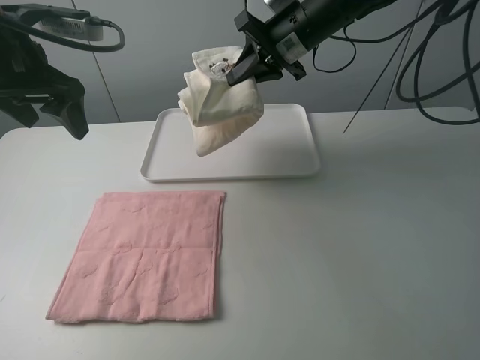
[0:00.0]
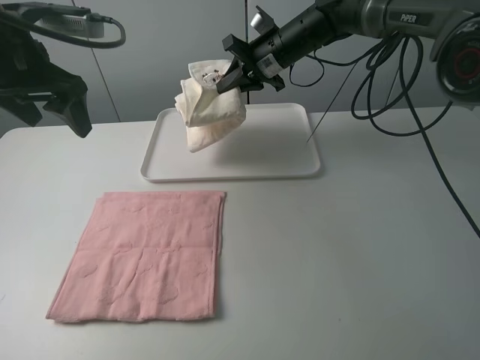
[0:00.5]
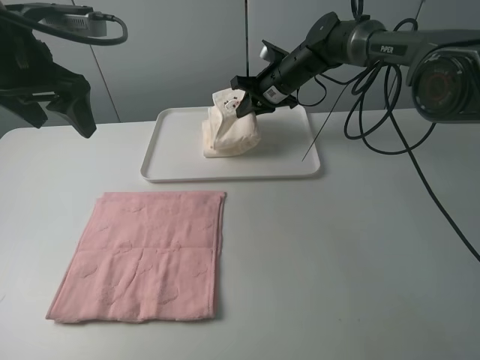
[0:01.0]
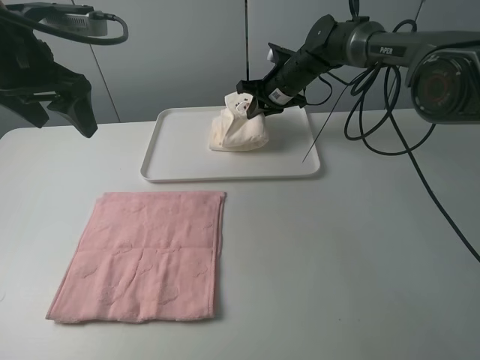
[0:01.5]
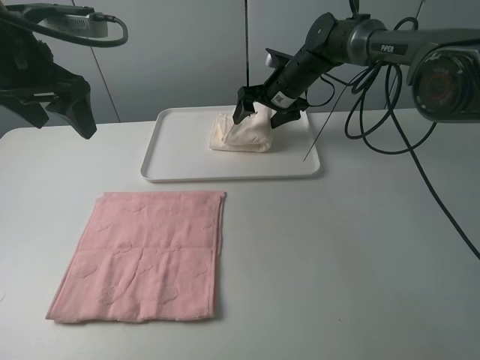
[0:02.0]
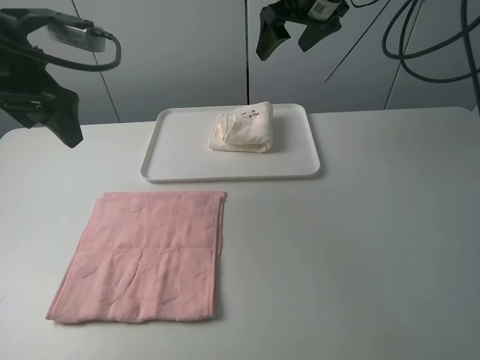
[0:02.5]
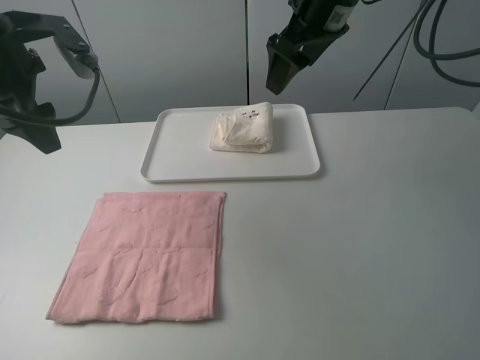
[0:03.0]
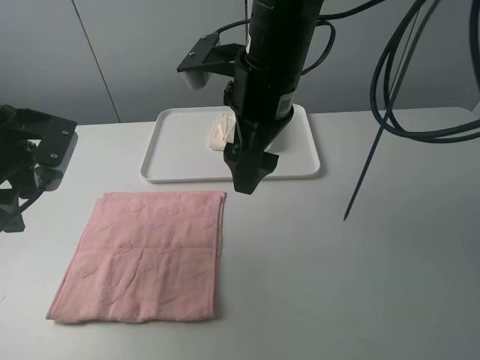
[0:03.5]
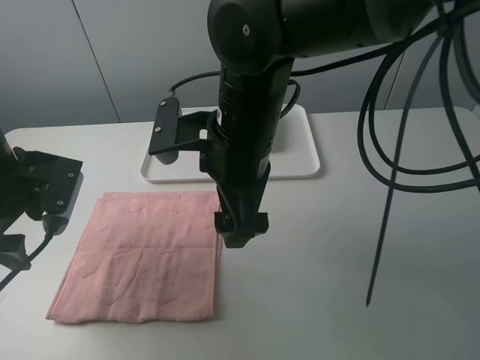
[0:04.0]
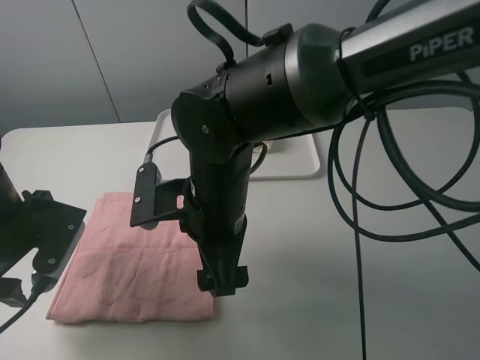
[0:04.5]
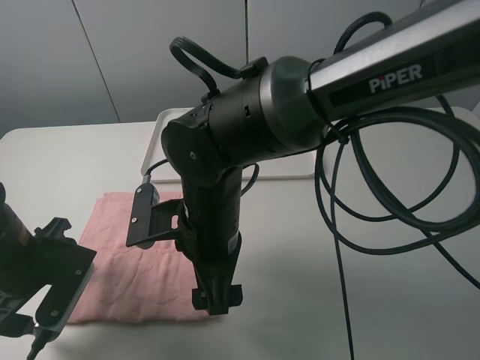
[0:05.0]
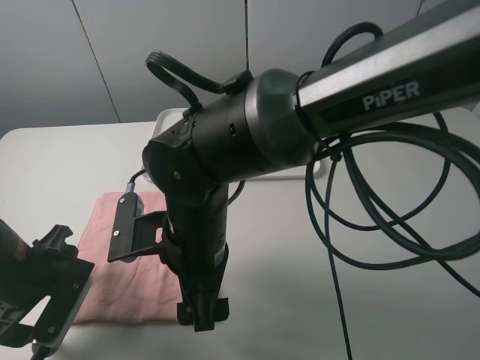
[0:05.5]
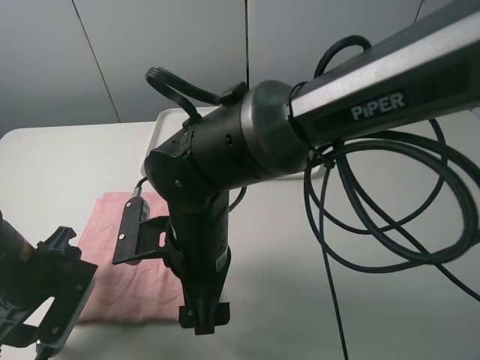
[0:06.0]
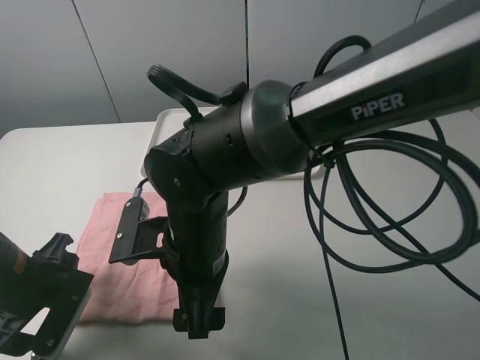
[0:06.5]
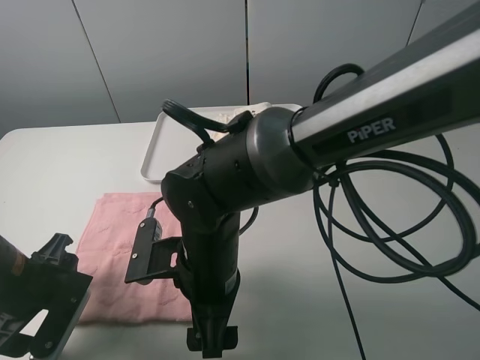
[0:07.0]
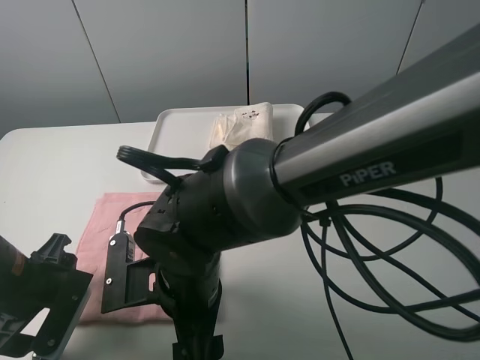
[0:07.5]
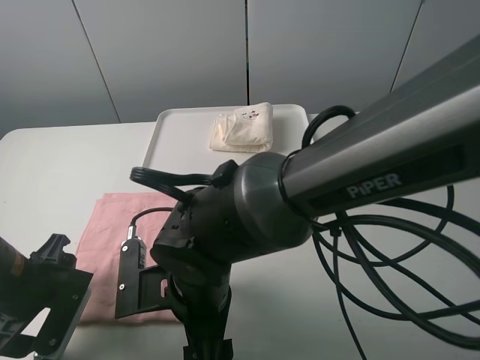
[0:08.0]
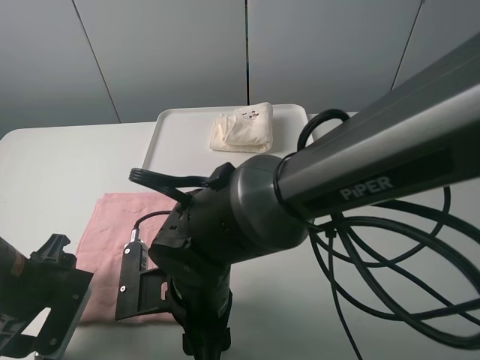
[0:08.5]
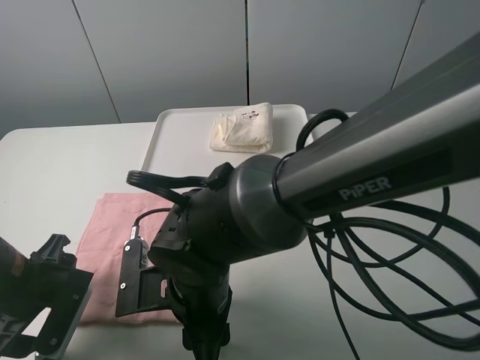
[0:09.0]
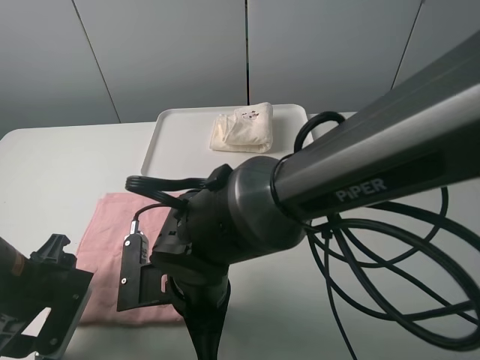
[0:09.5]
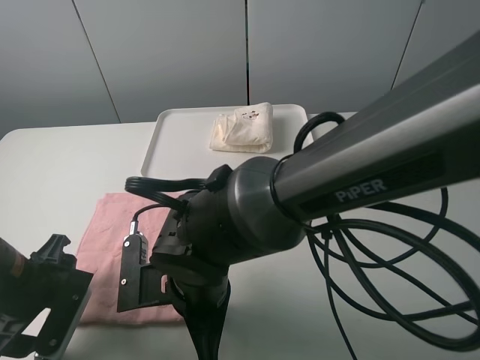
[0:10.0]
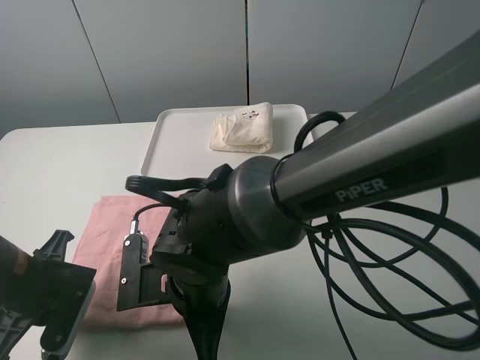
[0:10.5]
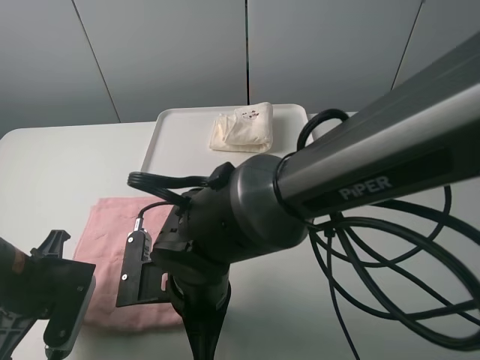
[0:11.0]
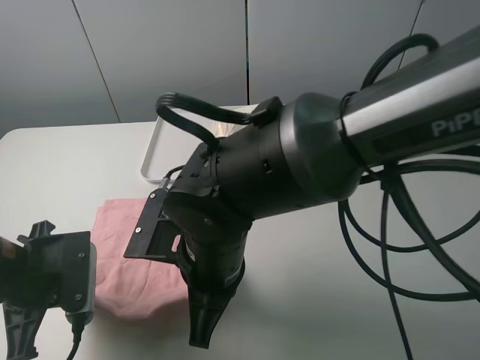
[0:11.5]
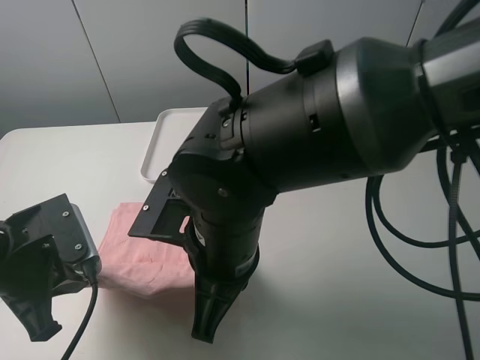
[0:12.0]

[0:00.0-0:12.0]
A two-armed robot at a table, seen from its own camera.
Task of the whole recording: fold one of the towels by two grippers and place it on the tray,then fold another towel by two grippers and place it on the folded towel.
Step, 0:00.0 to 0:02.0: Move the pink towel to the plate with the right gripper.
Step, 0:02.5 to 0:10.5: Grasp the pink towel with the left gripper.
0:00.0 to 0:02.0: The right gripper is displaced downward and forward by approximately 15 cm, and opens up.
0:02.0 to 0:04.0: The left gripper heads downward and backward, covering approximately 15 cm. Meanwhile the right gripper goes some 30 cm backward.
0:04.0 to 0:06.0: The grippers both shift downward and backward by roughly 10 cm.
0:06.0 to 0:08.0: The right gripper ends up approximately 5 cm from where it was.
0:08.0 to 0:10.0: The right gripper closes its fingers.
0:10.0 to 0:12.0: The grippers both shift upward by about 5 cm. The left gripper closes up.

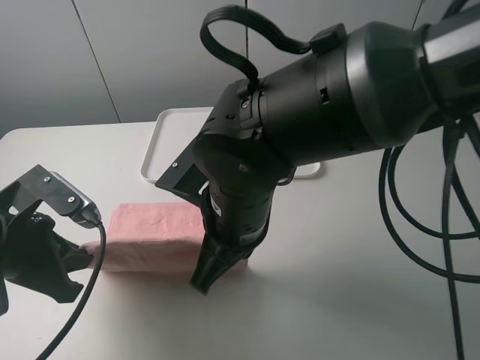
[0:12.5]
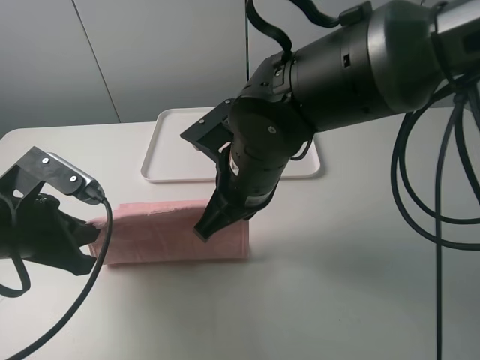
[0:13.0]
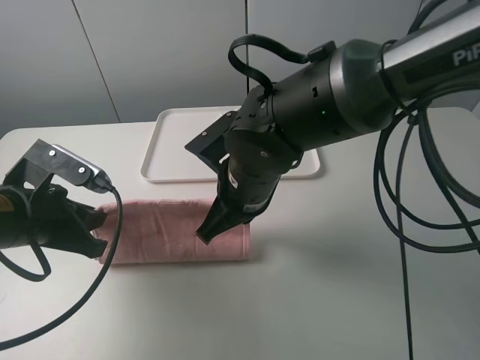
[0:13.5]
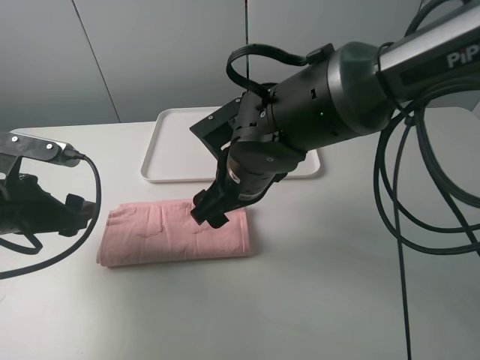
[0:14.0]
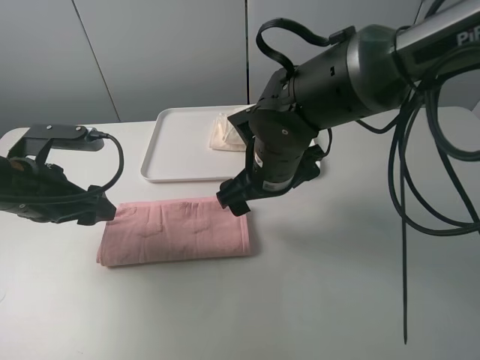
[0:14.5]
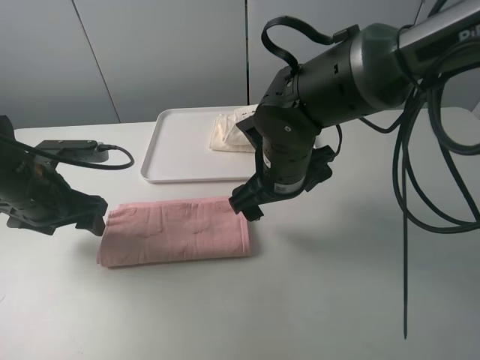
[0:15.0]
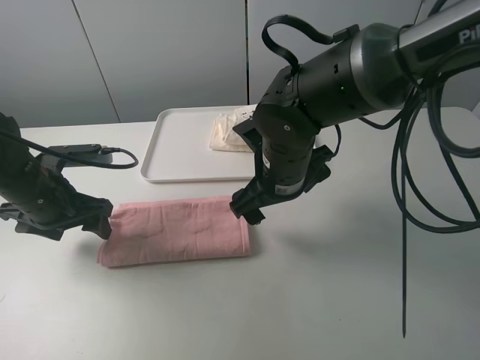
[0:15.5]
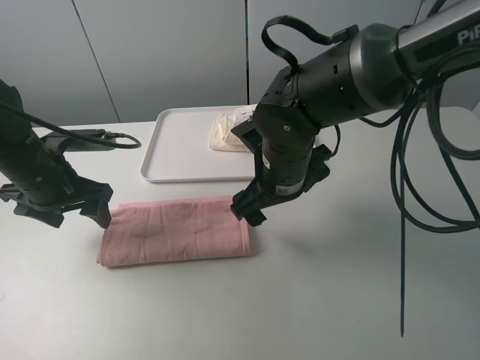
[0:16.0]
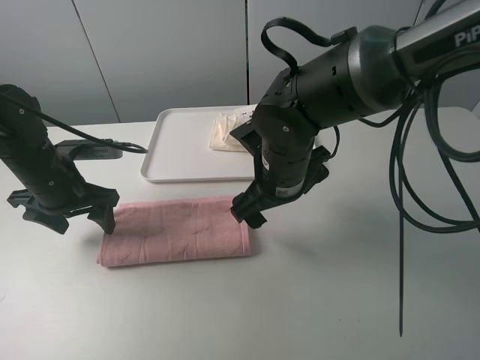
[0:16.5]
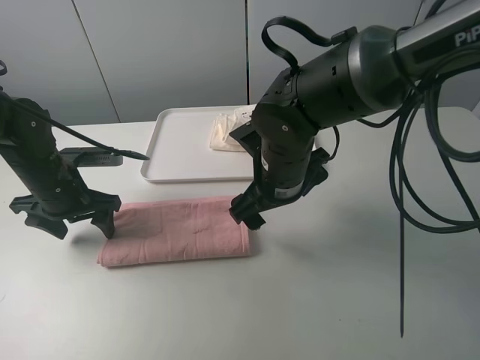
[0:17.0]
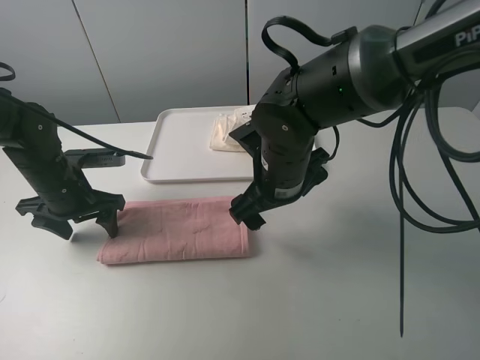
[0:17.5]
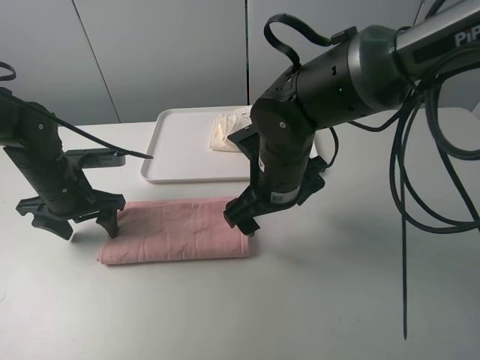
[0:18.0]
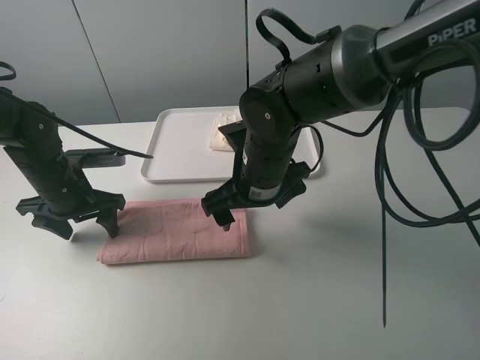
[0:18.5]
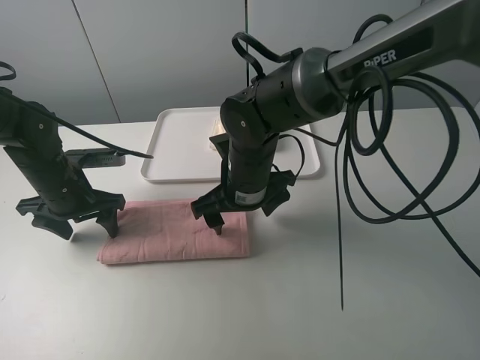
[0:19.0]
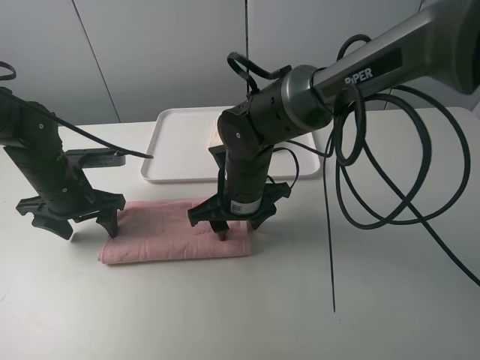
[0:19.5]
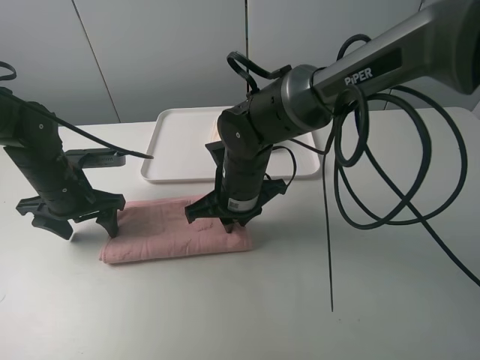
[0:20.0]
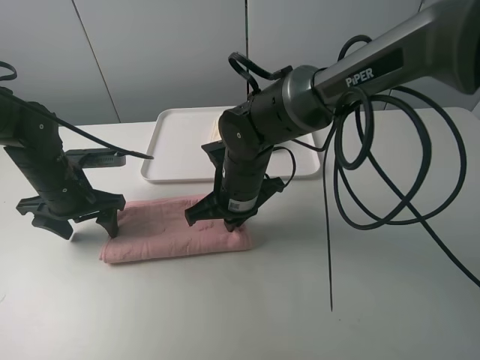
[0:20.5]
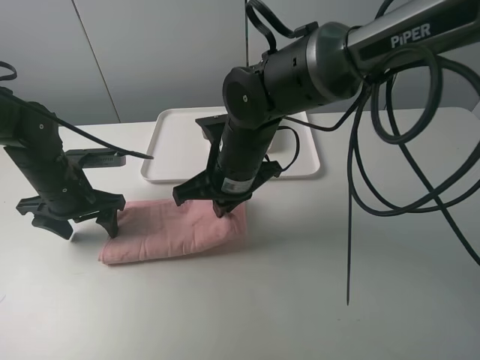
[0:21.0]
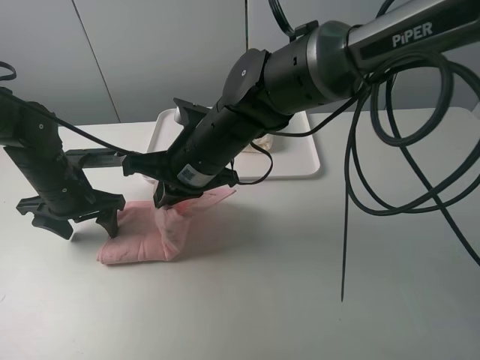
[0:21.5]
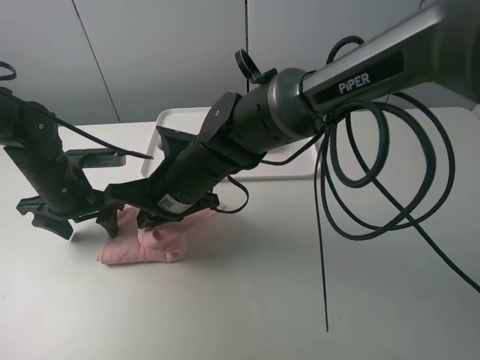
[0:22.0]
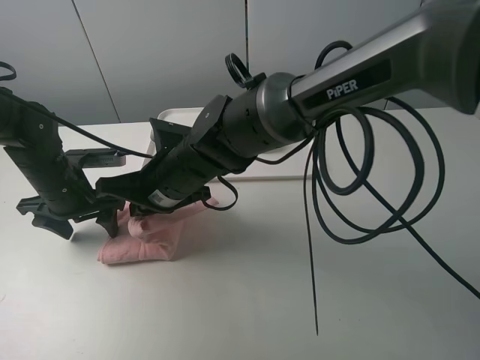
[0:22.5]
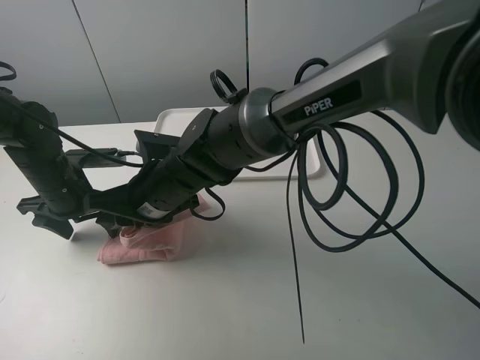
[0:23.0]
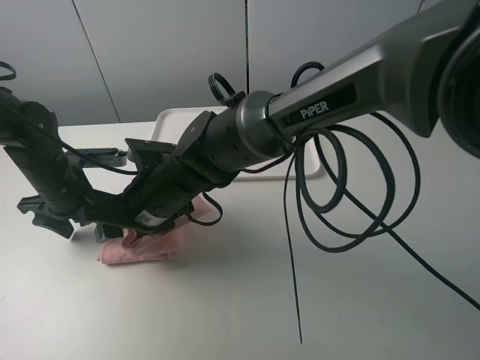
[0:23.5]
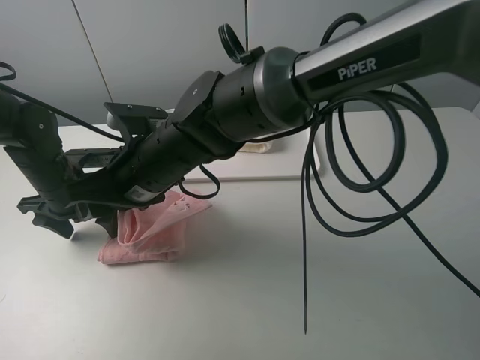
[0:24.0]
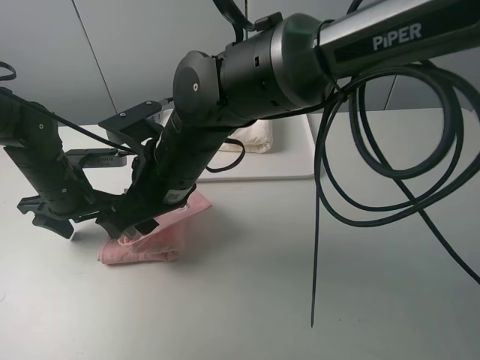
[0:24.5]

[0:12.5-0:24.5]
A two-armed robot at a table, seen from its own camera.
Task of the whole recording: fold one of the towels by two grippers and place it on the tray,then fold another towel by two grippers and place it on the folded towel.
Step, 0:14.5 to 0:17.5: Press the pink towel with the left gripper.
Step, 0:18.0 to 0:19.5: Grasp the pink towel with the right gripper.
0:12.5 to 0:14.5: Both grippers move forward, roughly 10 cm. The left gripper opens up; the right gripper opens up.
0:14.5 to 0:16.5: The left gripper shifts about 5 cm forward.
0:16.5 to 0:18.5: The grippers move only a little.
0:18.5 to 0:20.5: The right gripper changes place by about 5 cm, and closes its fingers.
0:20.5 to 0:22.5: The right gripper shifts about 10 cm to the left.
0:22.5 to 0:24.5: The right gripper shifts by approximately 5 cm, and opens.

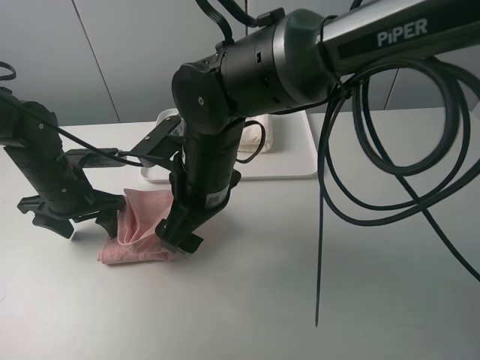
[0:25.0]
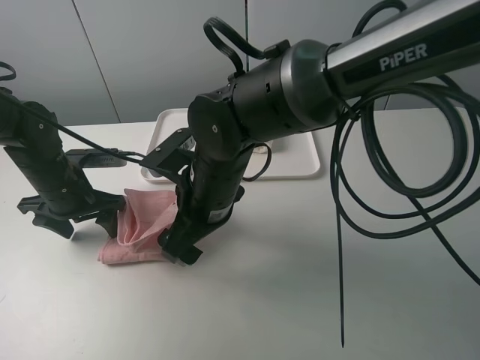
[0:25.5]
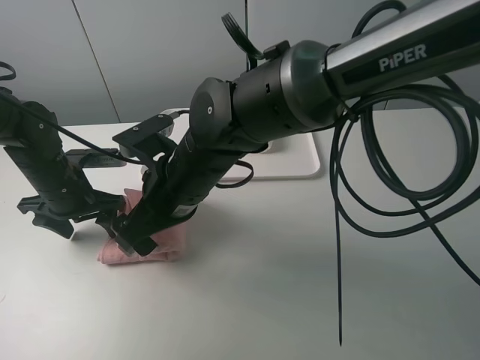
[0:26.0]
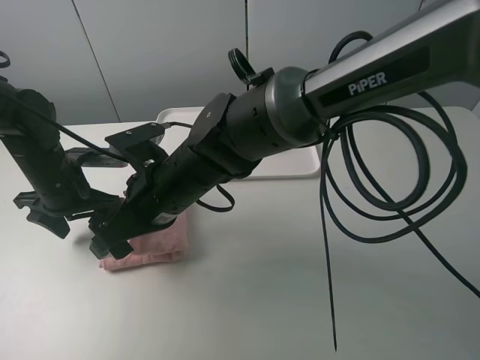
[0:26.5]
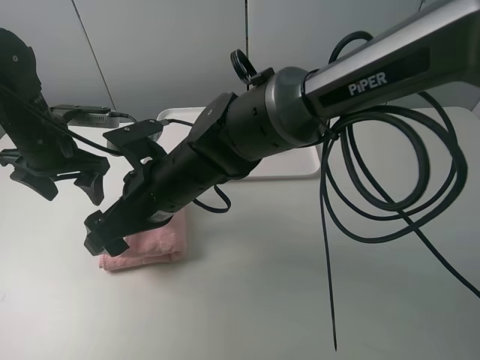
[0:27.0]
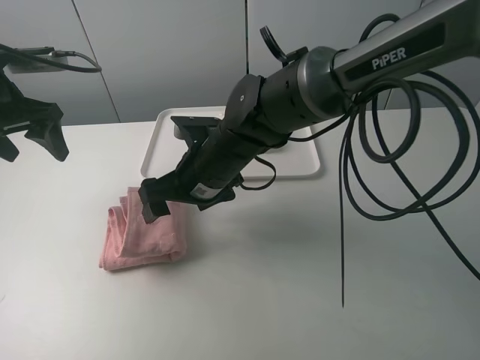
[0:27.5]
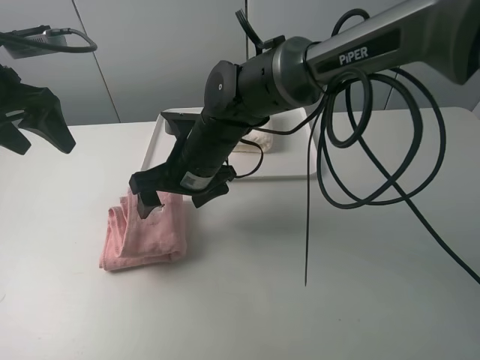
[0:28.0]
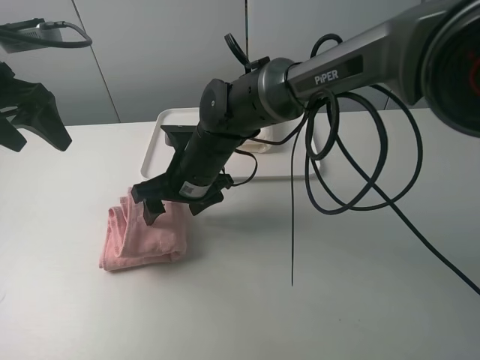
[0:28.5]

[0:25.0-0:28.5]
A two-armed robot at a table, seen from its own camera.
Task of the whole recording: fold one of the towels by two grippers and place it on the tray,then fold another towel by two grippers and place it on the folded towel.
Step, 0:25.0 to 0:27.5: Fold the pink towel from right to left with right gripper.
0:25.0 to 0:27.0: The left gripper moves upward, about 10 cm.
0:27.0 to 0:28.5: The right gripper heads forward, covering roughly 5 cm, while the left gripper heads upward, covering some 10 cm.
